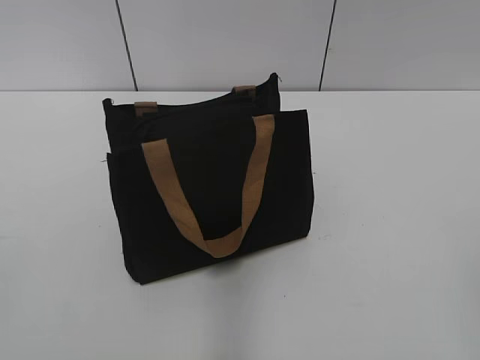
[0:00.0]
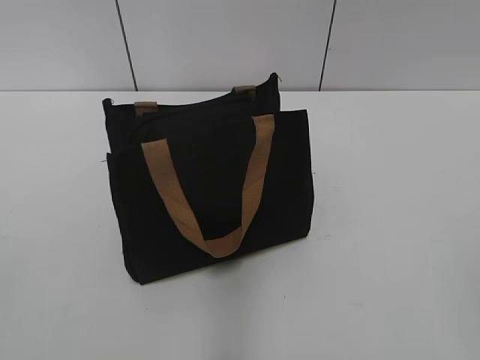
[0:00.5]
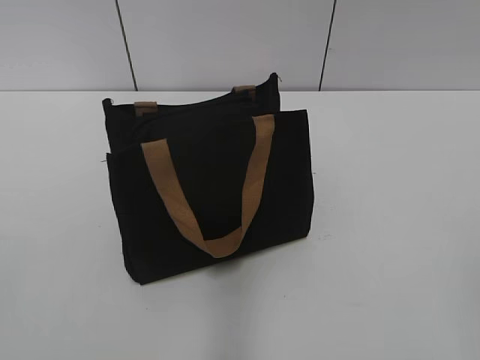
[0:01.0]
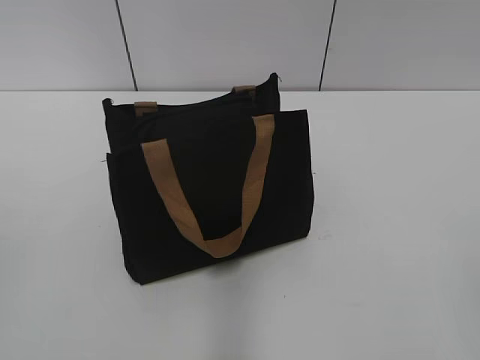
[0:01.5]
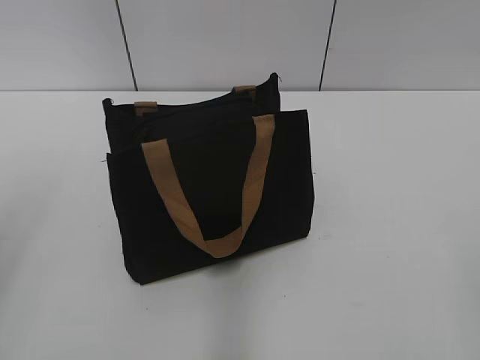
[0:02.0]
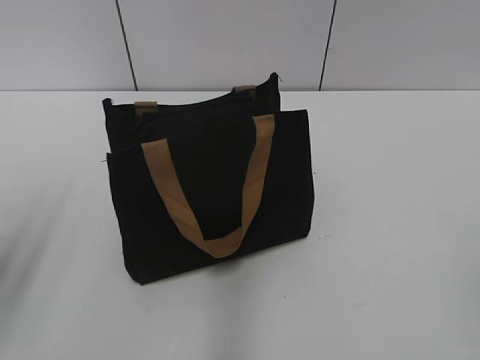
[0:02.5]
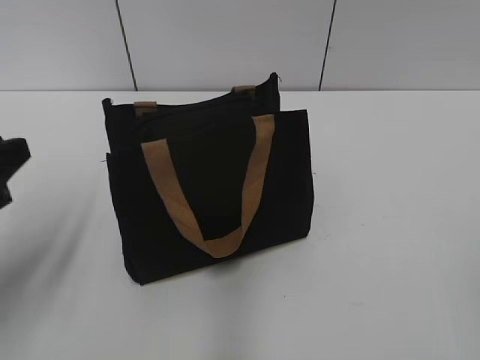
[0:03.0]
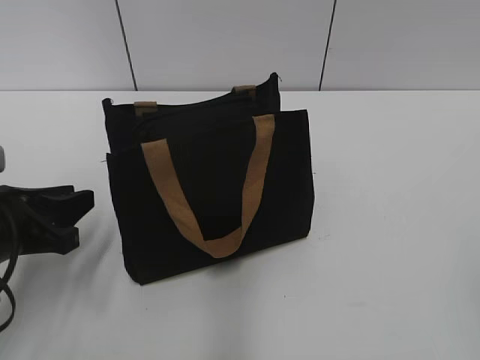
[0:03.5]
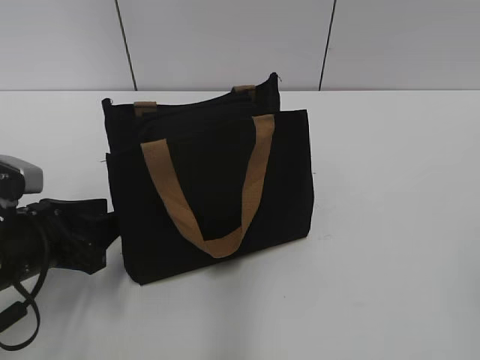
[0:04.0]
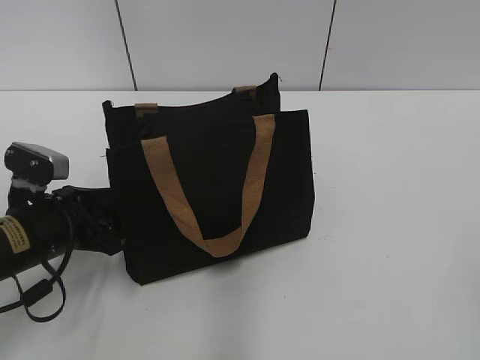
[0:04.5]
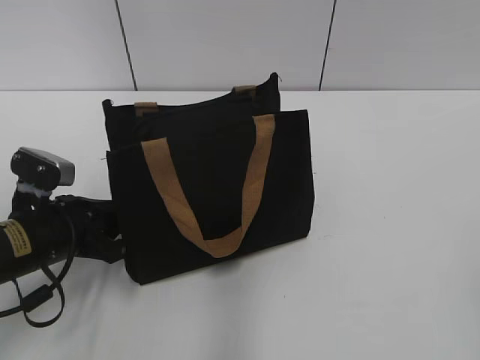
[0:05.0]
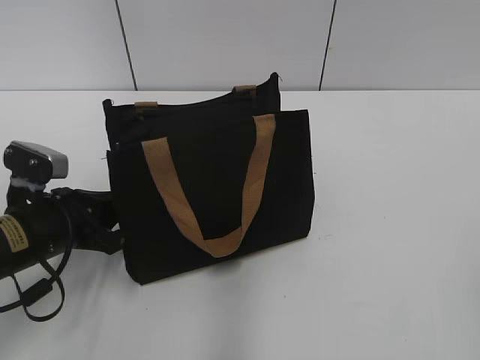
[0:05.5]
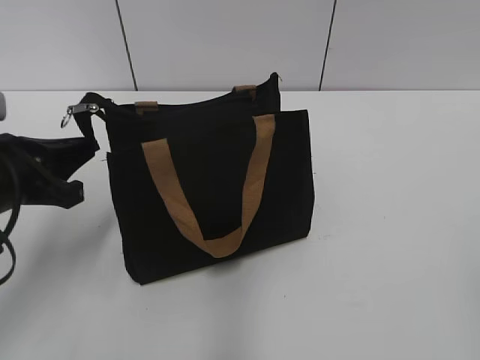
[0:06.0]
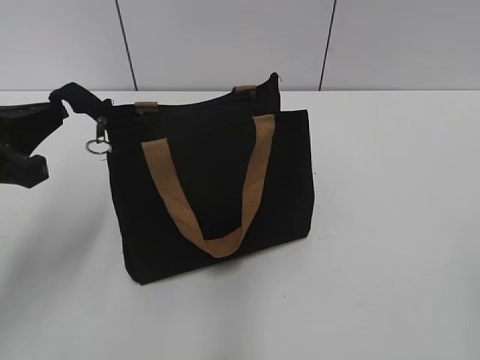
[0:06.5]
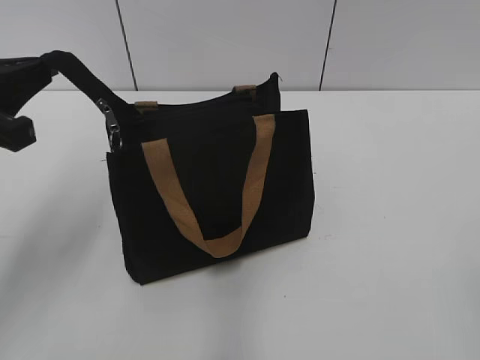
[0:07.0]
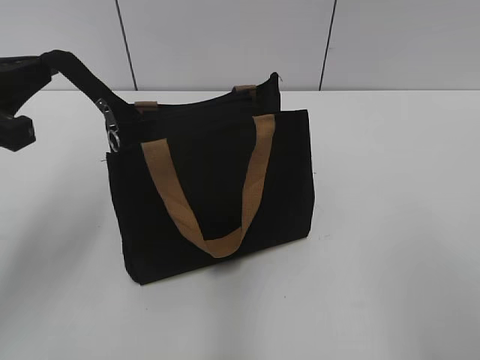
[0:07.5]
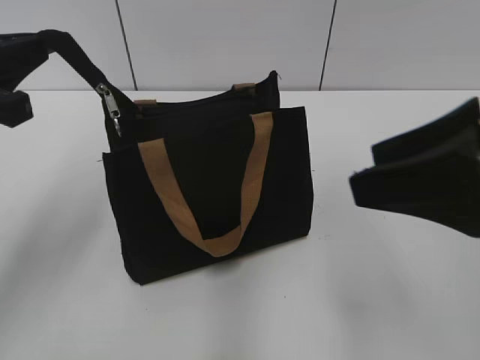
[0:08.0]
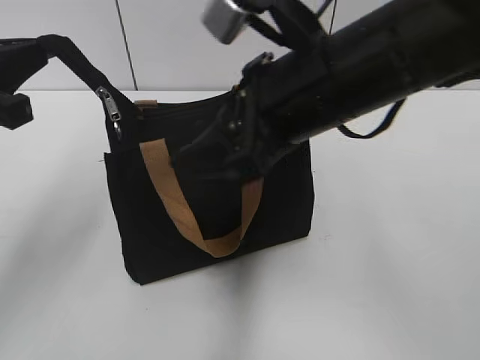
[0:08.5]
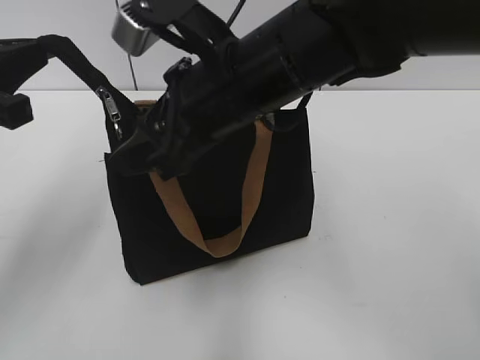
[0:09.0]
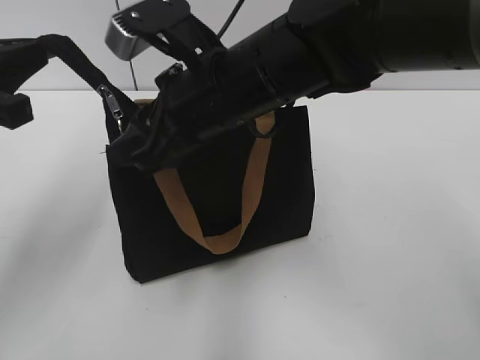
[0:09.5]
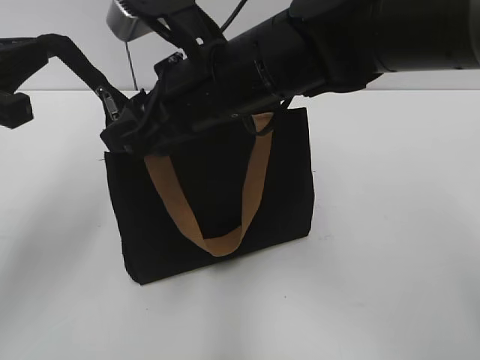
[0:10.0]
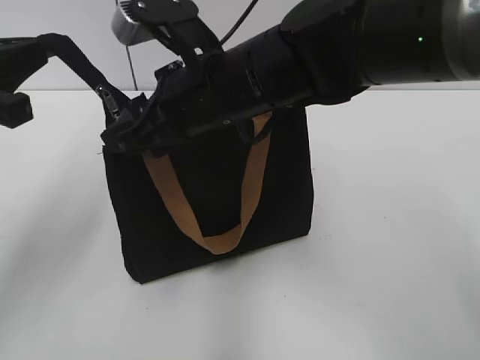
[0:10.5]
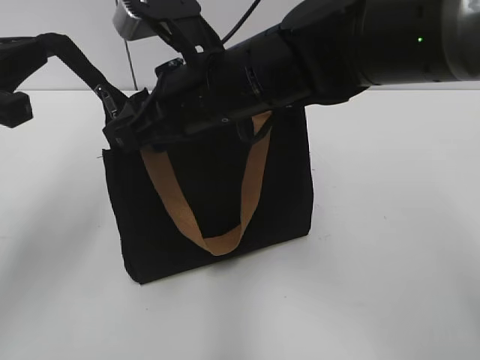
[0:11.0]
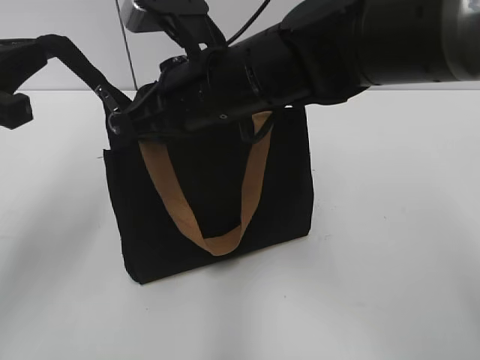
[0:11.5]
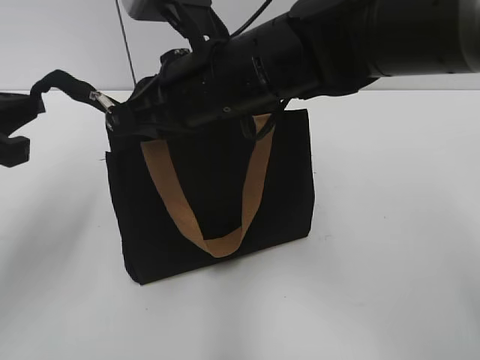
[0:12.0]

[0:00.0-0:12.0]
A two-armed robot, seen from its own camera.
0:02.0 to 0:04.0: The left gripper goes about 25 cm downward and forward.
0:04.0 to 0:06.0: The left gripper heads upward, covering approximately 5 cm, and closes.
0:06.0 to 0:08.0: The right gripper travels forward and to the left by roughly 20 cm. Meanwhile the left gripper shifts some 10 cm upward.
0:08.0 to 0:10.0: The right gripper goes approximately 25 cm to the left and forward.
0:10.0 to 0:12.0: The right gripper closes its fingers.

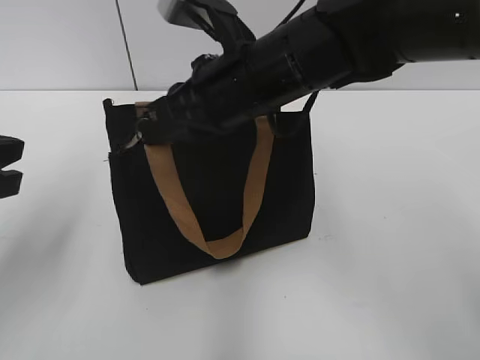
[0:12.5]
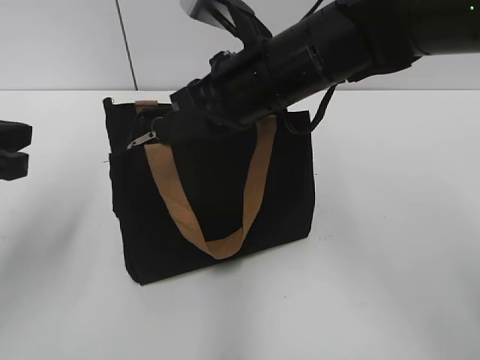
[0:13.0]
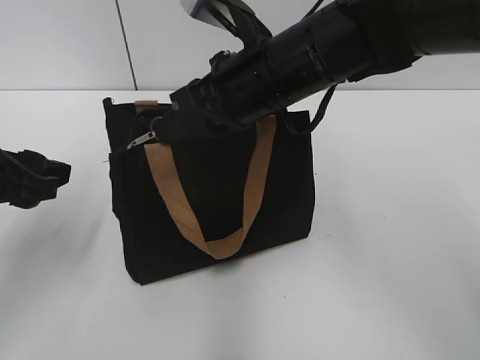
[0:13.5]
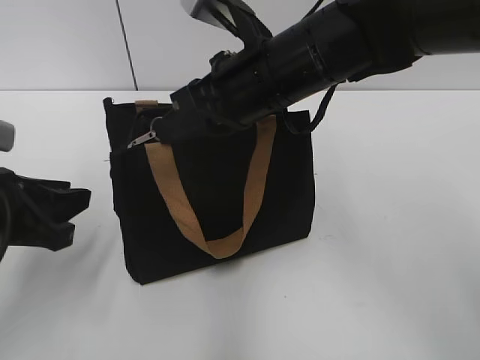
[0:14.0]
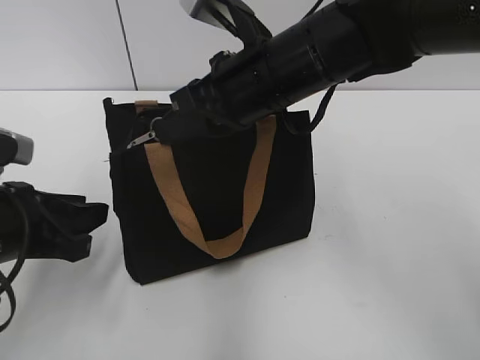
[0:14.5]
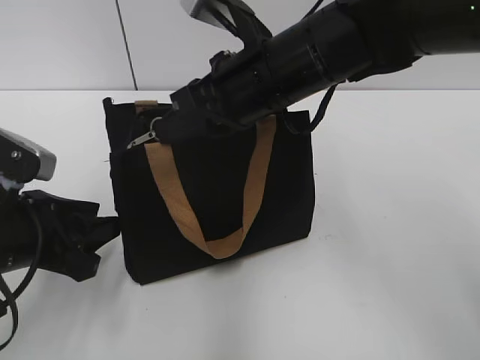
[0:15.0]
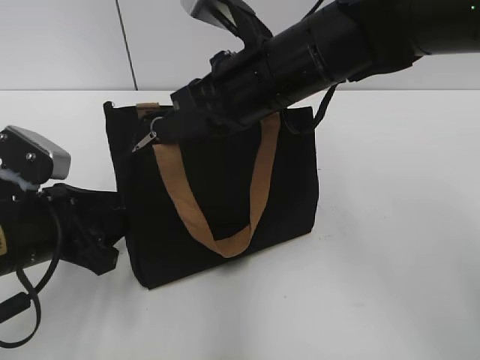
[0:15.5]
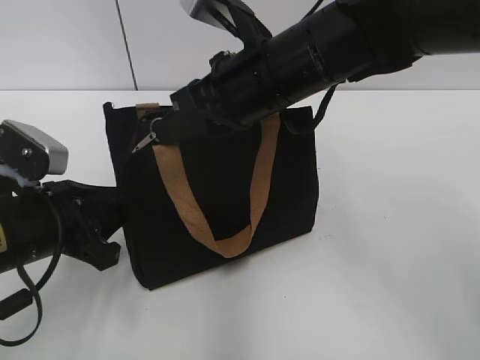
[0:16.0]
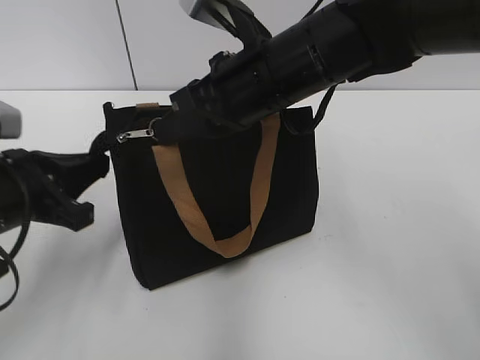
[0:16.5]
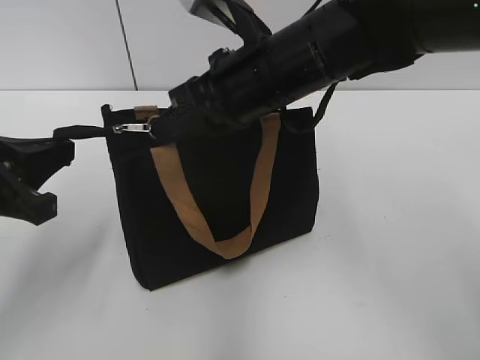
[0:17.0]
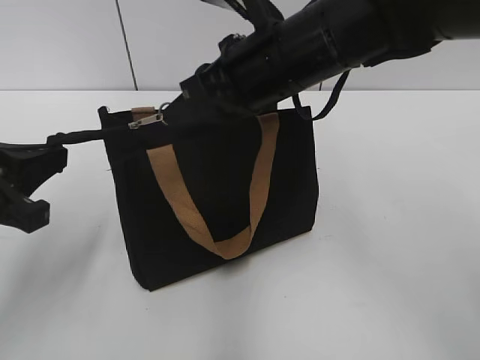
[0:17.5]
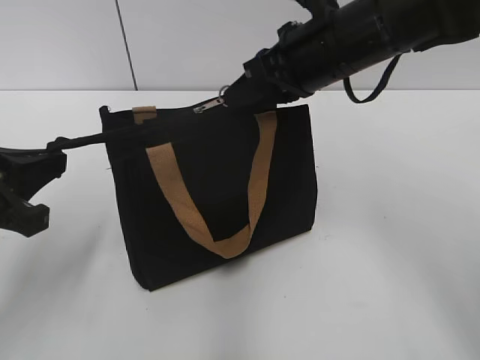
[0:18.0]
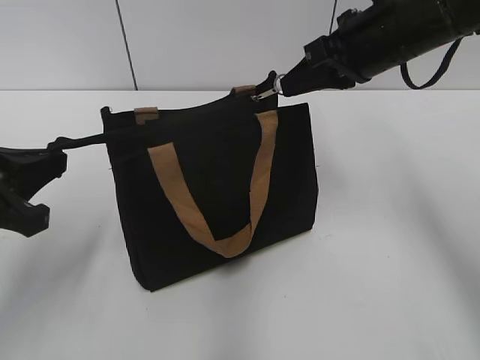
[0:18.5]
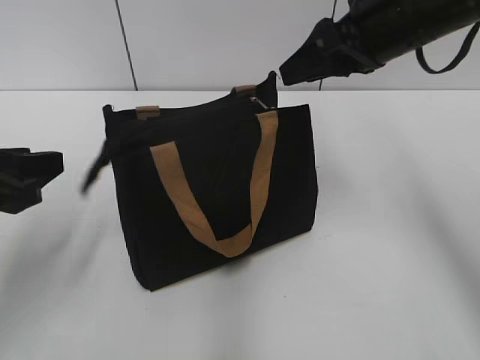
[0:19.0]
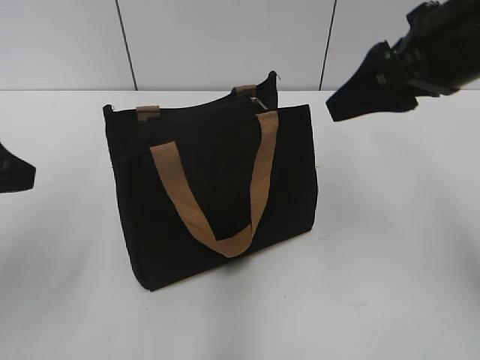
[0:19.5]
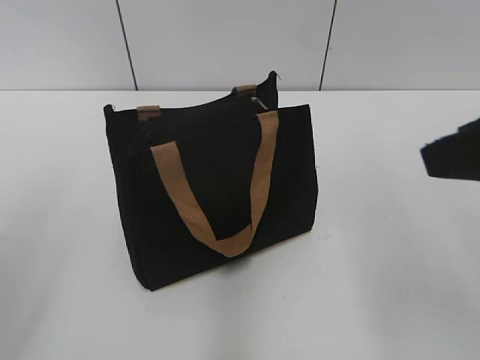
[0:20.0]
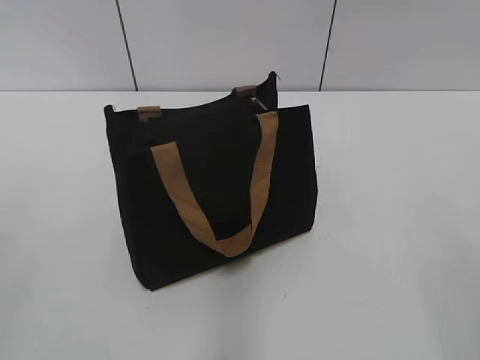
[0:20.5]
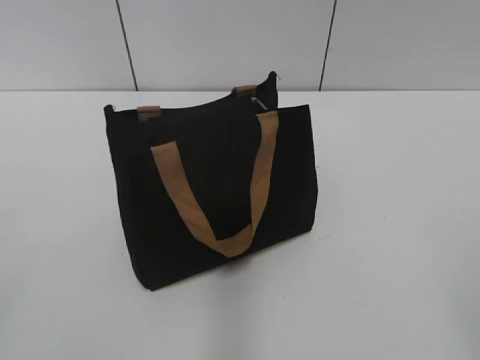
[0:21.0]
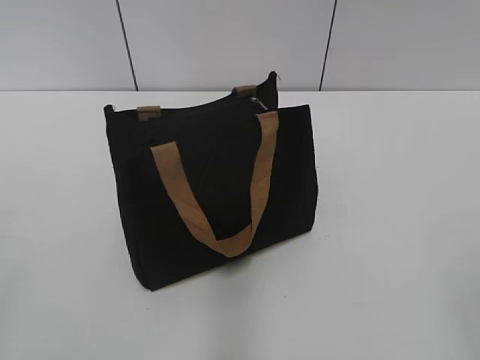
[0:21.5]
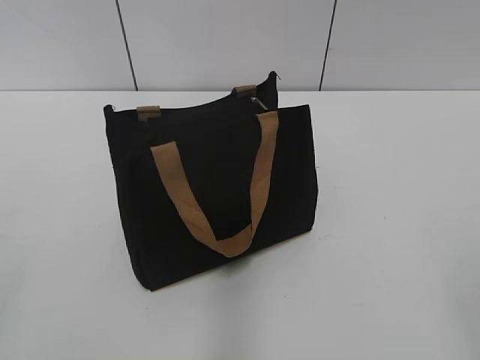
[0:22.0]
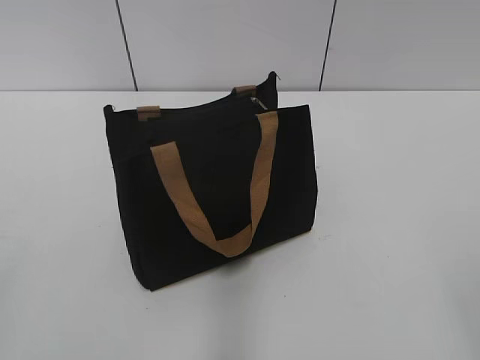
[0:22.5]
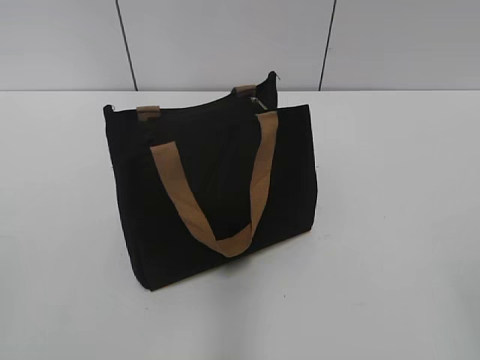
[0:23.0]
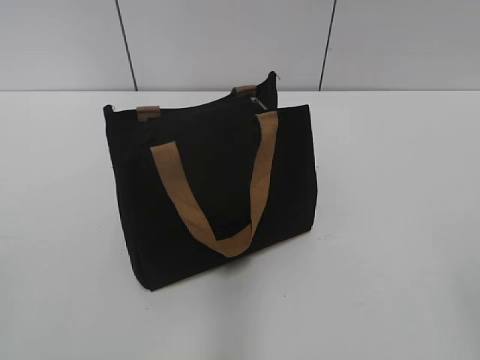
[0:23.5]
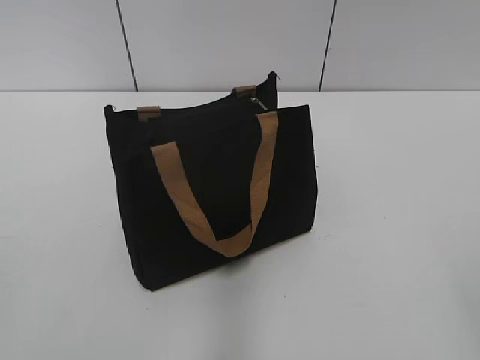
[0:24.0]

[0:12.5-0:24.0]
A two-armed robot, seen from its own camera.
Step, 0:12.5 to 0:18.5: Zip up the bag with your right hand.
0:12.5 to 0:14.5: The left gripper moves downward, about 5 cm, and opens its fingers.
0:14.5 to 0:16.5: The left gripper closes up.
0:16.5 to 0:18.5: The right gripper moves to the right, about 10 cm.
0:18.5 to 0:20.0: The left gripper travels upward and backward by roughly 10 cm, and opens. Meanwhile the right gripper travels backward by about 20 cm, and opens its fingers.
0:20.0 to 0:22.0: The right gripper moves backward, some 15 cm.

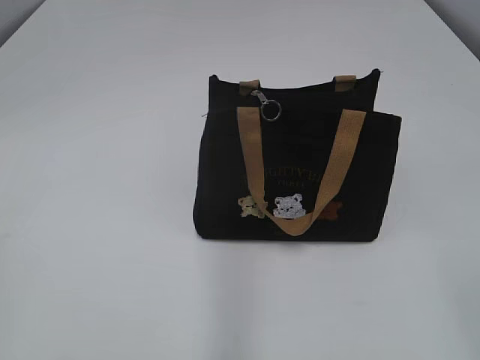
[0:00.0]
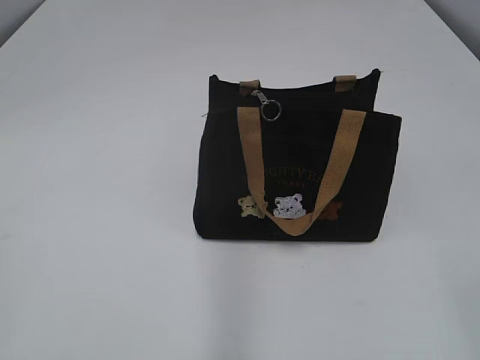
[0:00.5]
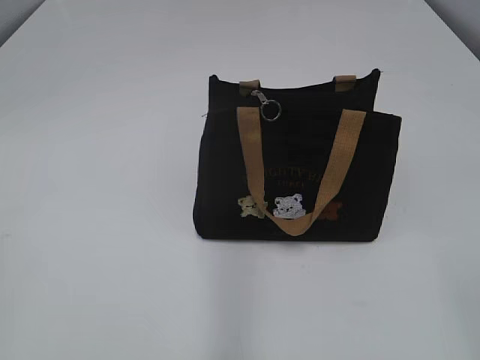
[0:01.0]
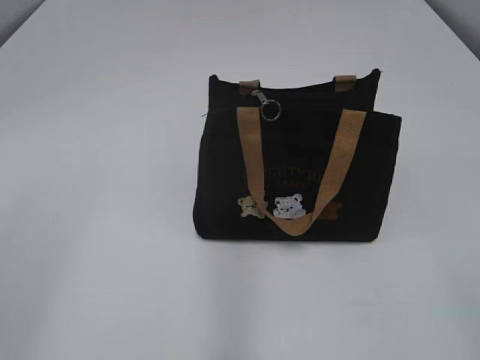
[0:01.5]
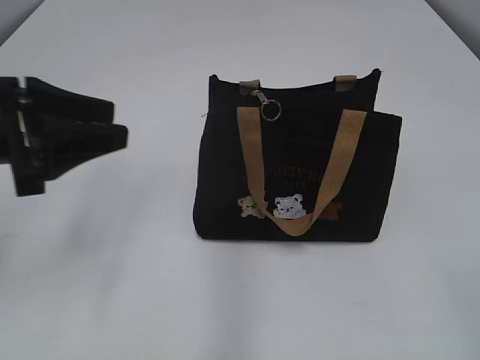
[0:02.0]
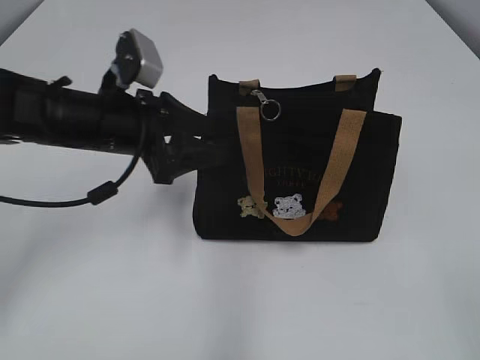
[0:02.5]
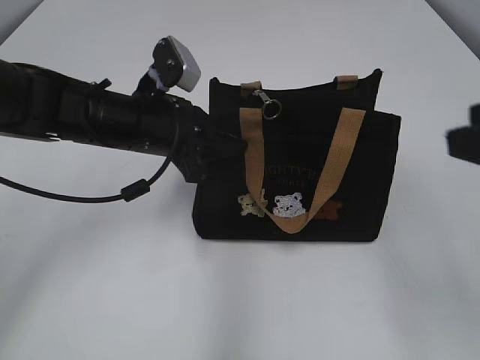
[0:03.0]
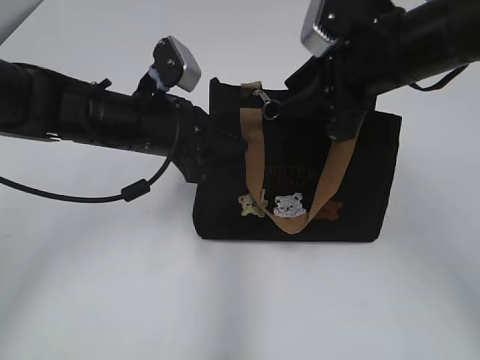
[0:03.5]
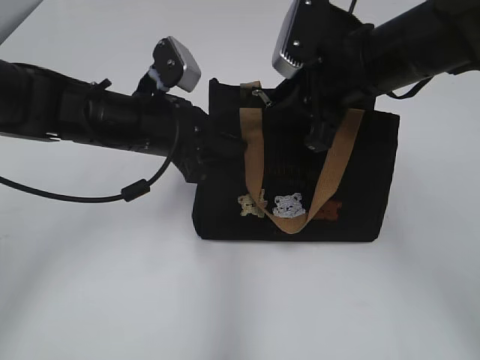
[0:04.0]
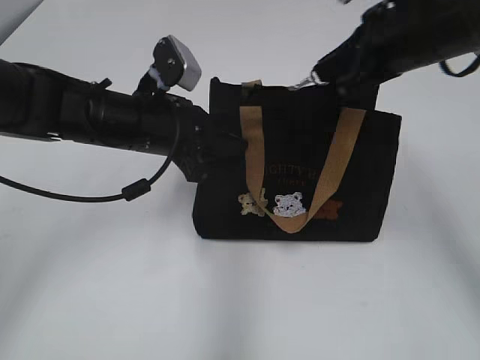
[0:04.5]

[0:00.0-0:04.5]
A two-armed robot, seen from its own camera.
0:02.0 to 0:04.5: The left gripper heads forward, to the right and downward, covering roughly 35 cm, and closes up, while the right gripper moves forward and to the left, roughly 35 cm, and closes.
